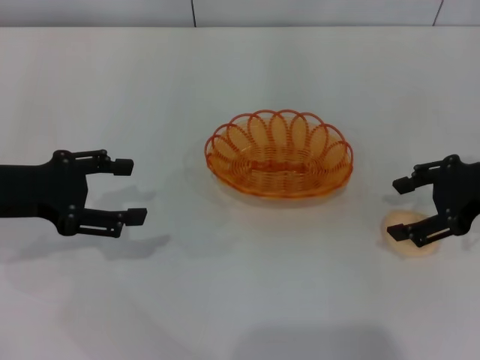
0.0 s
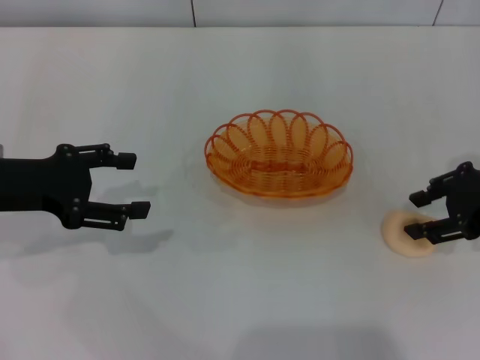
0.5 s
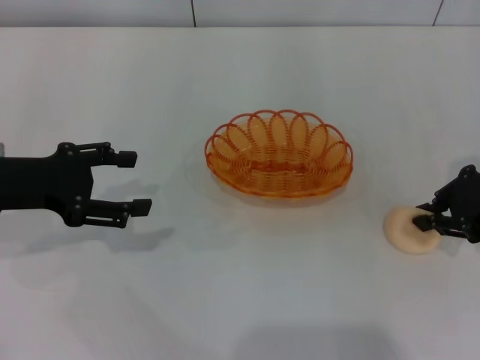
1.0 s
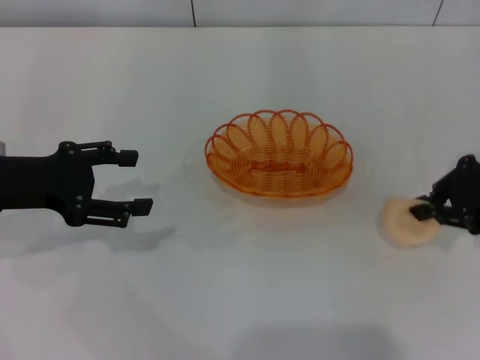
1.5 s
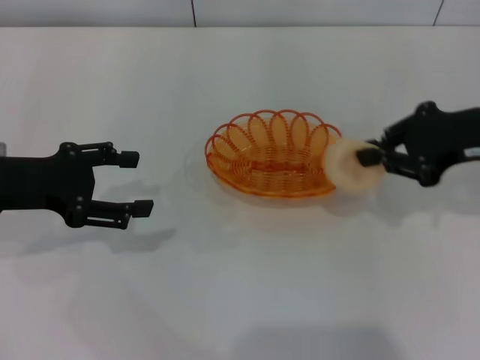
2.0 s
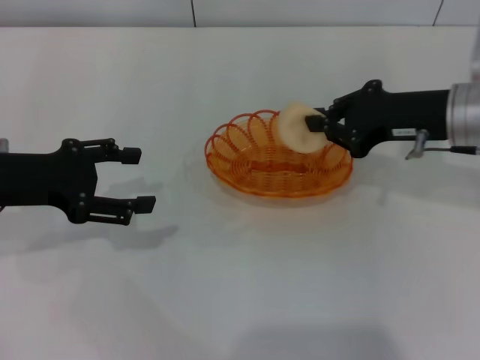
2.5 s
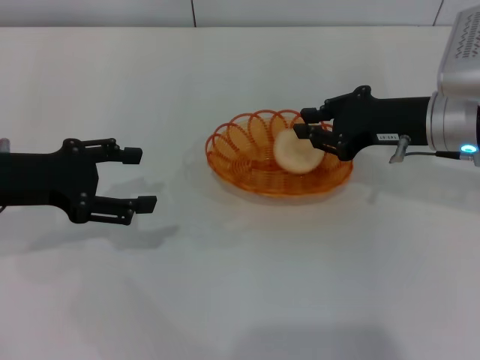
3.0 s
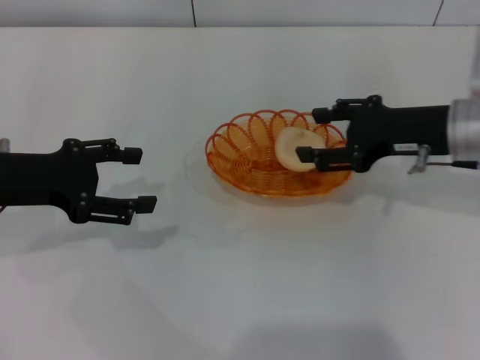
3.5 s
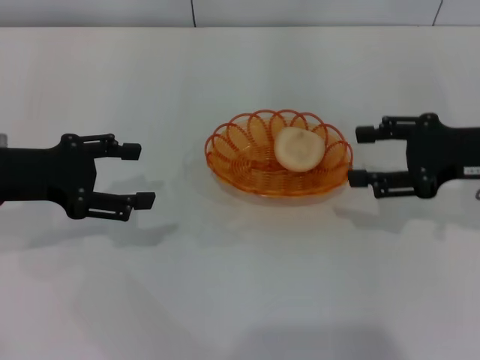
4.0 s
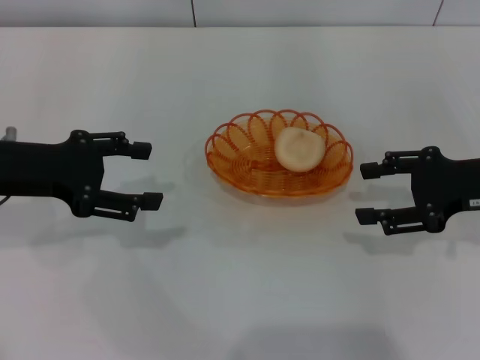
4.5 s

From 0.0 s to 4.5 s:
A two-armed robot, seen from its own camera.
Step, from 2.0 s to 3.5 s: Place the egg yolk pastry into the basket with the right gripper.
From 0.0 s to 2.0 s: The right gripper closes up.
From 2.0 s to 4.5 s: The right gripper shifts approximately 5 cm downward, travels to the left and back again, approximately 5 cm each way, and opens up.

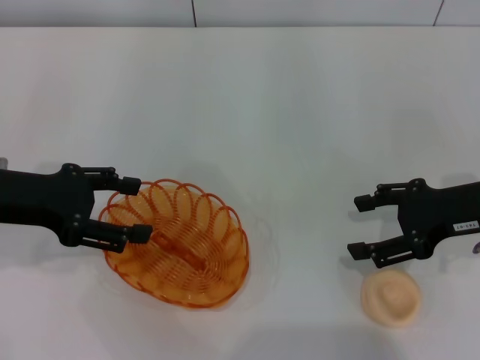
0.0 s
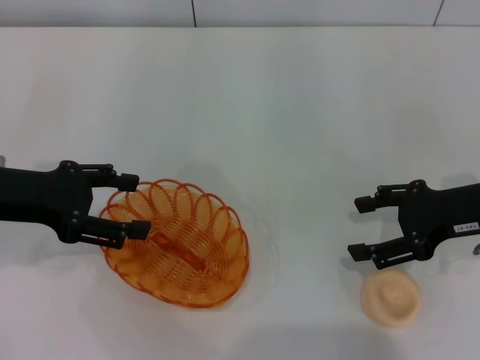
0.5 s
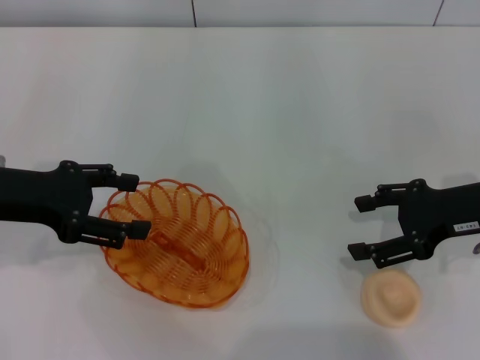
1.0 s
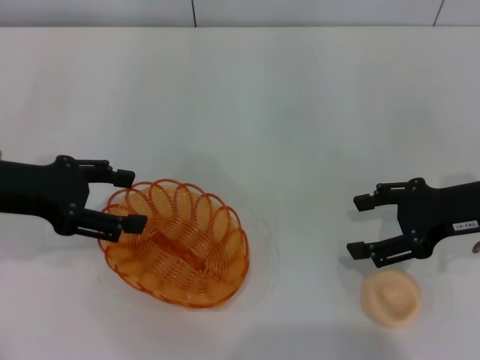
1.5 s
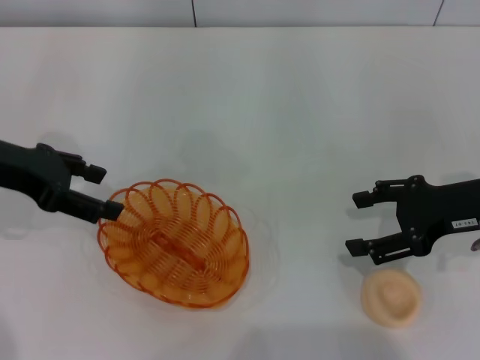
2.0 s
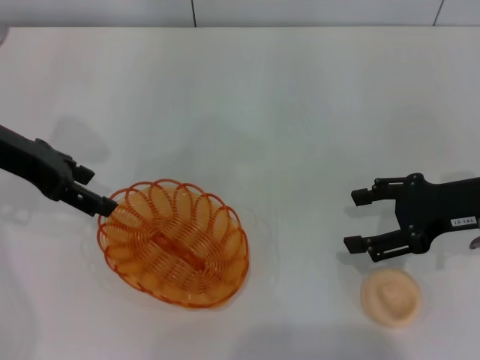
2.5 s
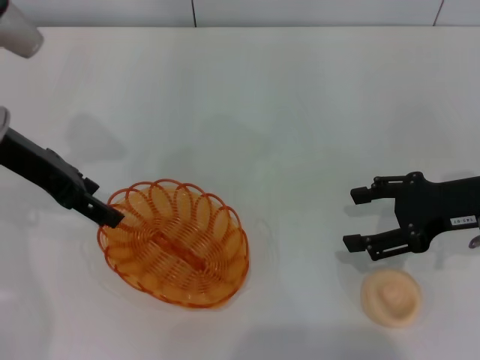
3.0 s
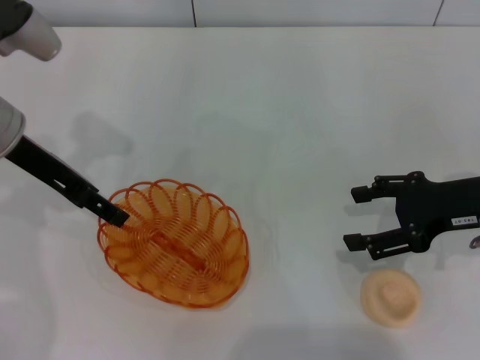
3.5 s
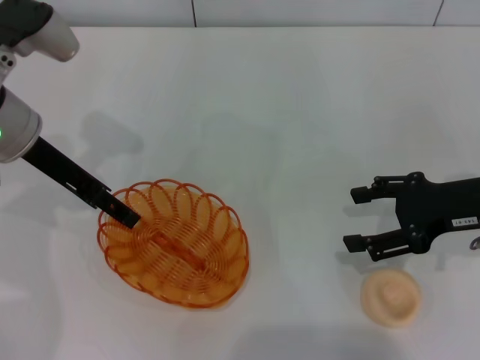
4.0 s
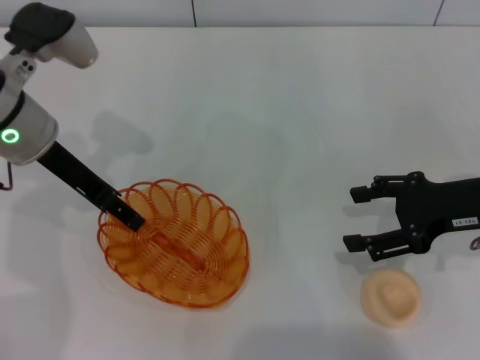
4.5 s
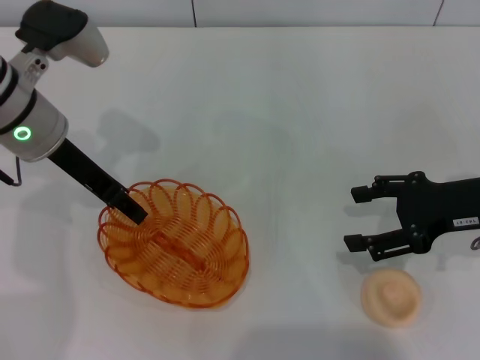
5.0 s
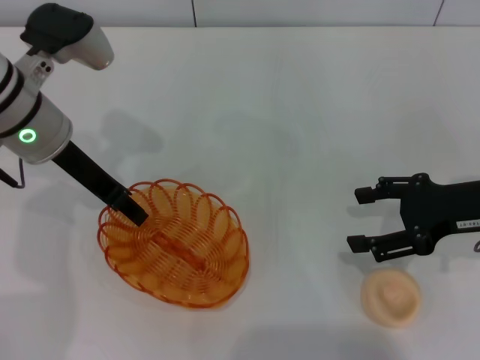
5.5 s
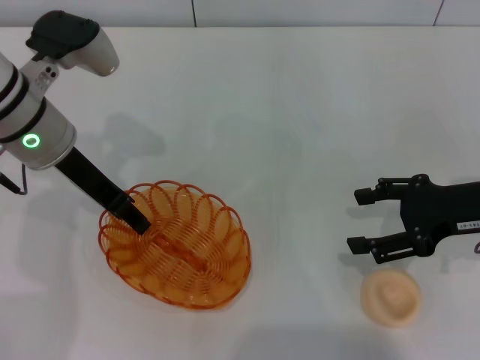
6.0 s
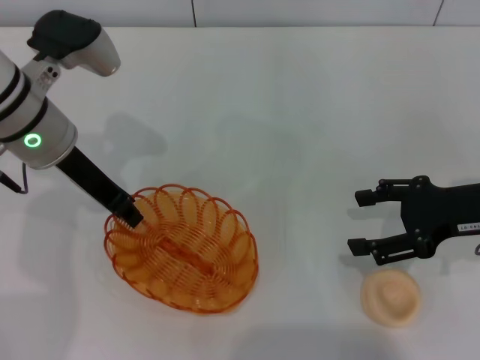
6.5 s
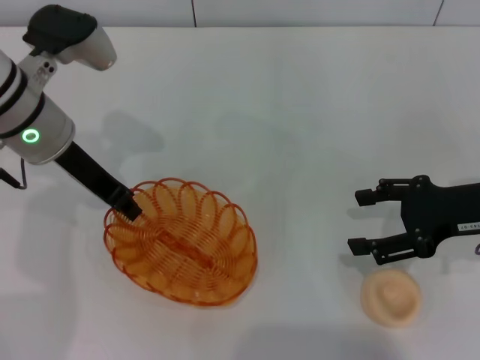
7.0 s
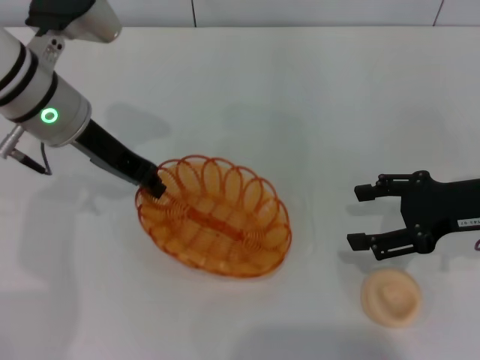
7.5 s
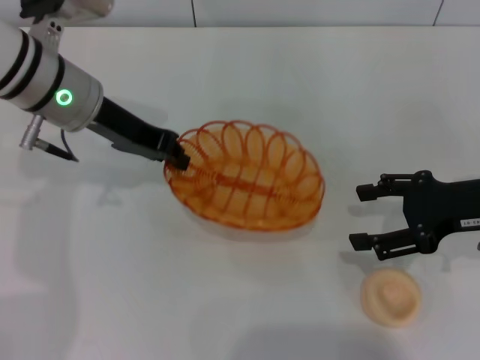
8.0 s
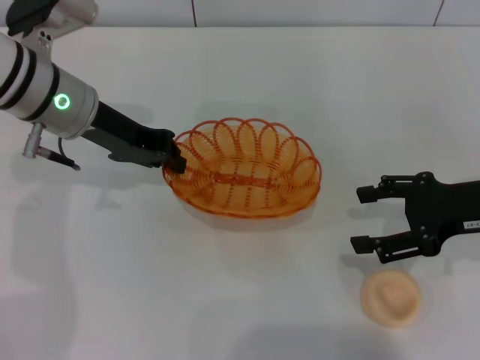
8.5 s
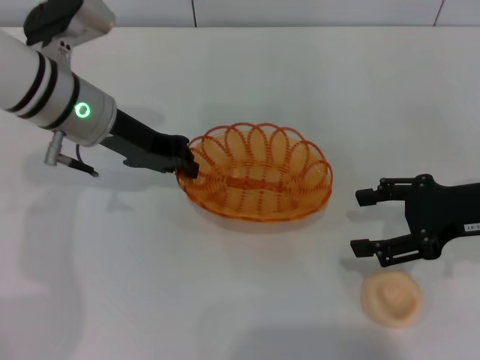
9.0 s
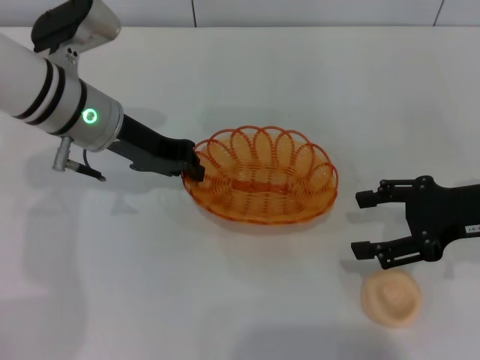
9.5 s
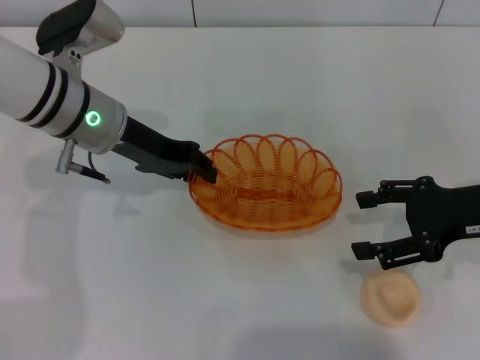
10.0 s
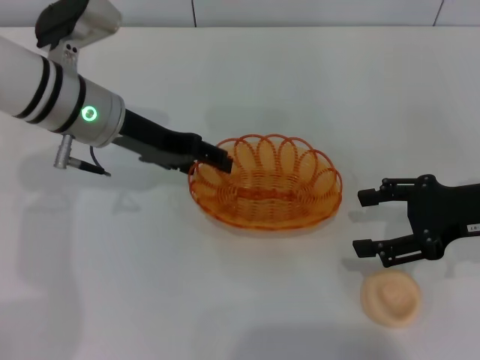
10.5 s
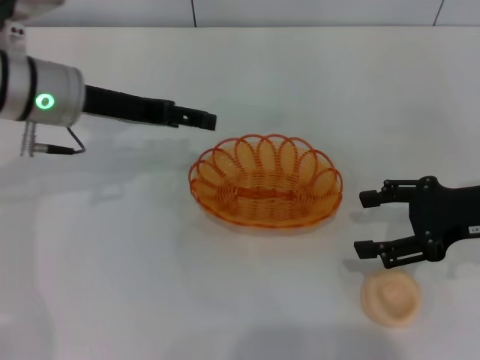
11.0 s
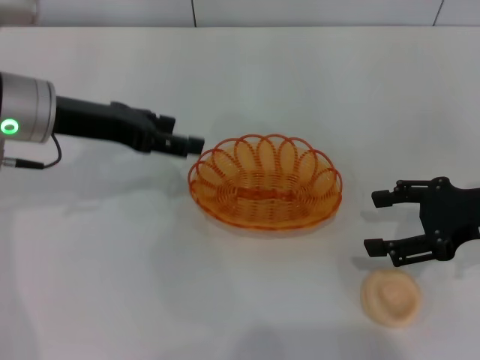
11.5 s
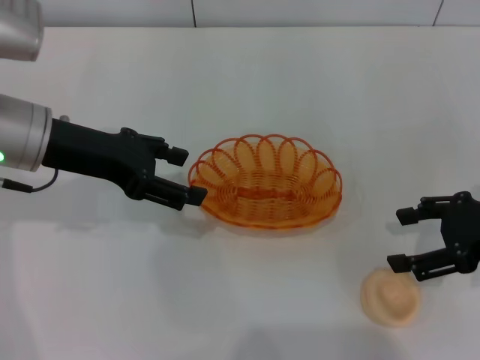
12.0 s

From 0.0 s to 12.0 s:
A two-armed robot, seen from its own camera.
Step, from 0.0 s to 8.0 s: Pick up the basket with the left gripper.
Step, from 8.5 s to 11.0 s: Place the basket in the center of view with the left gripper.
From 0.0 s to 2.0 s: The grippers stay close to where they were, moving slightly.
From 2.0 s to 4.0 s: The left gripper travels to the right by approximately 5 cm.
From 4.0 s to 6.0 s: The left gripper closes up.
From 6.0 s to 8.0 s: The left gripper closes up.
From 8.0 s to 10.0 s: There are only small adjustments of the grippers.
From 10.0 s to 12.0 s: The left gripper goes about 5 cm to the left, and opens up.

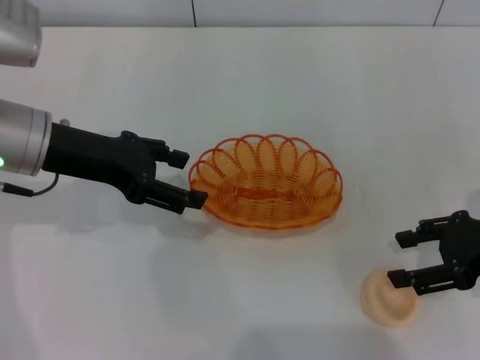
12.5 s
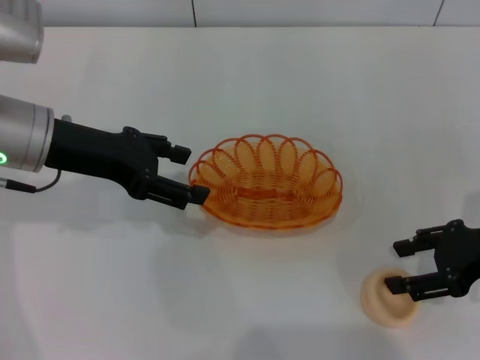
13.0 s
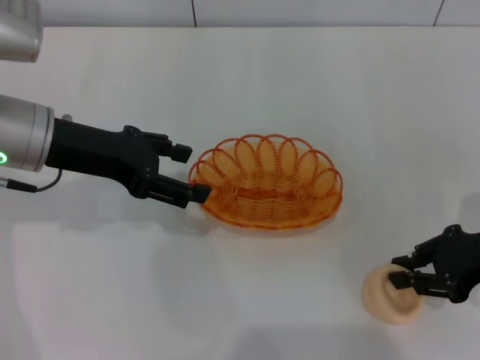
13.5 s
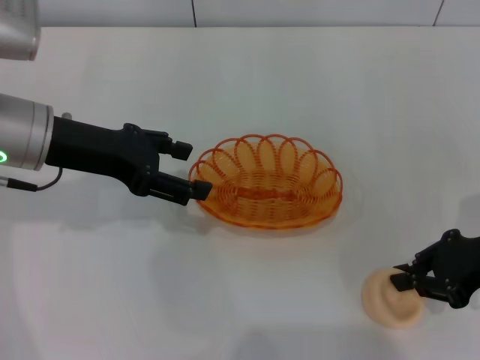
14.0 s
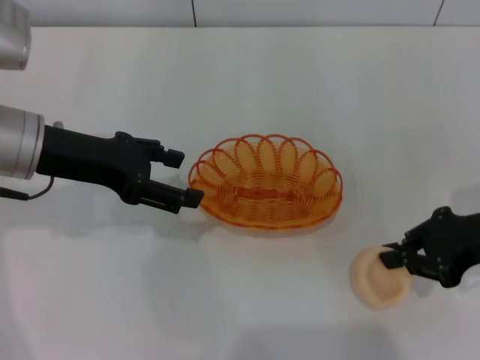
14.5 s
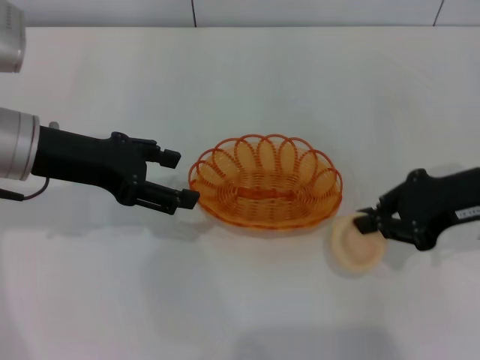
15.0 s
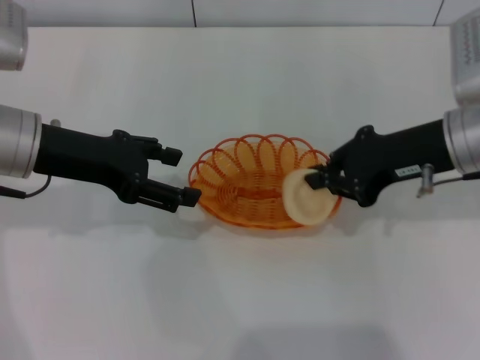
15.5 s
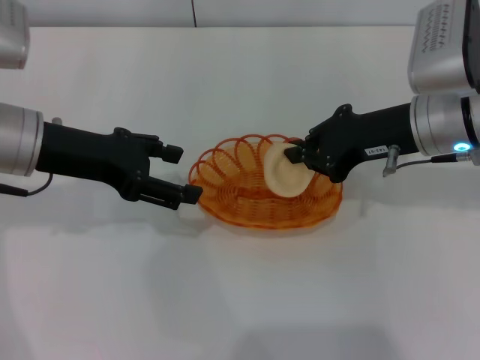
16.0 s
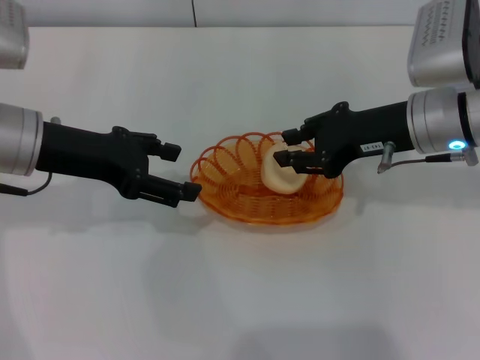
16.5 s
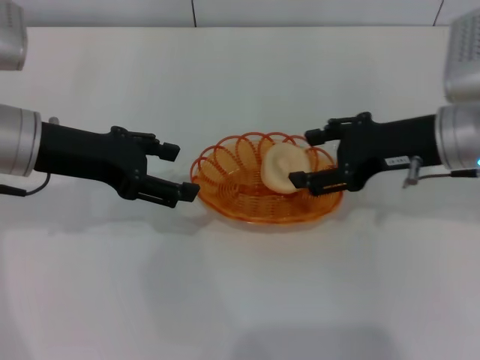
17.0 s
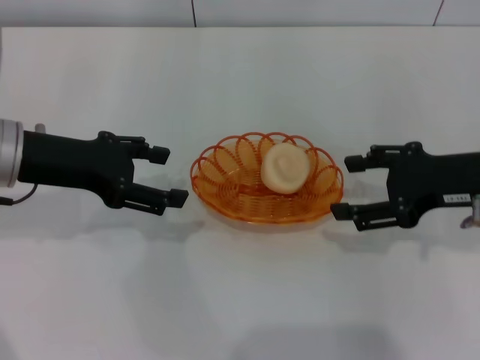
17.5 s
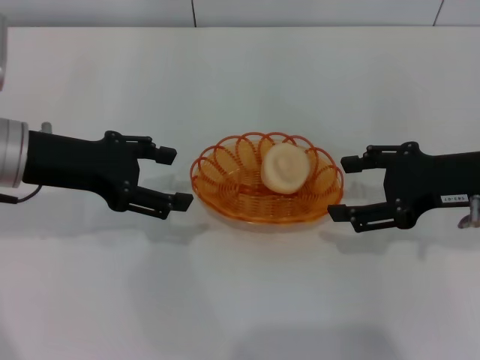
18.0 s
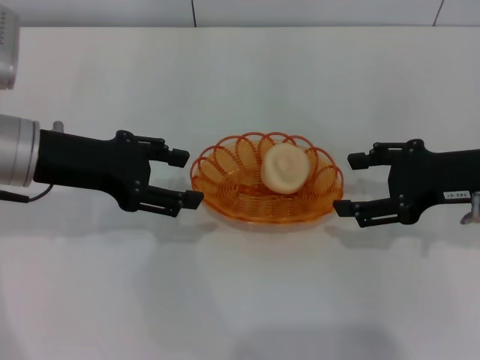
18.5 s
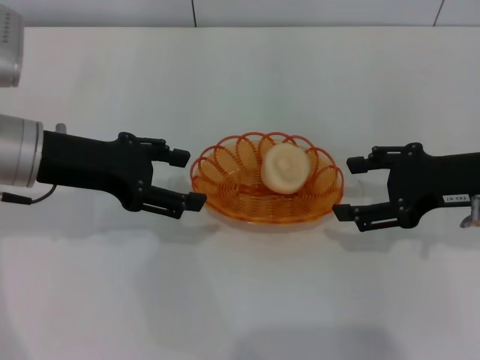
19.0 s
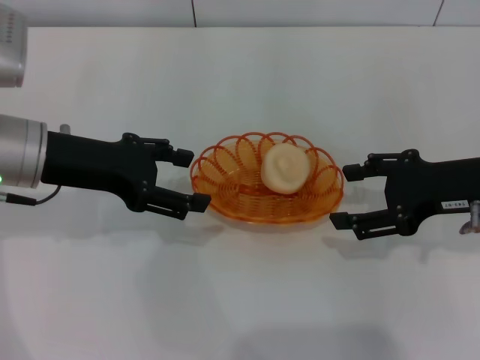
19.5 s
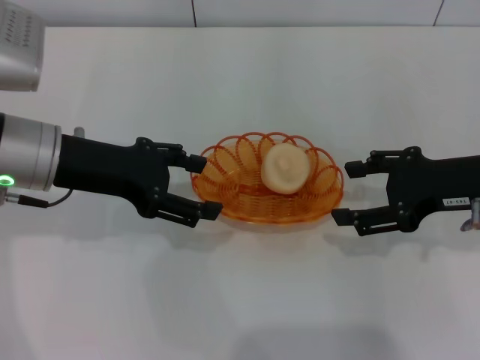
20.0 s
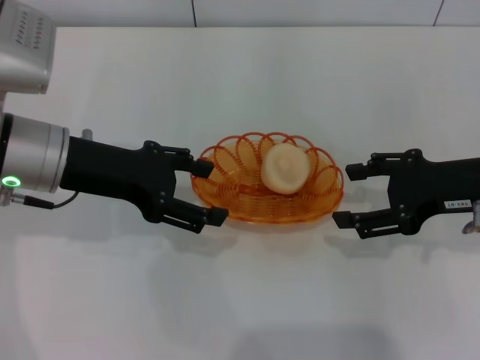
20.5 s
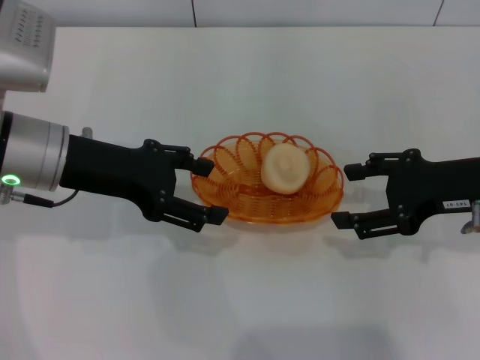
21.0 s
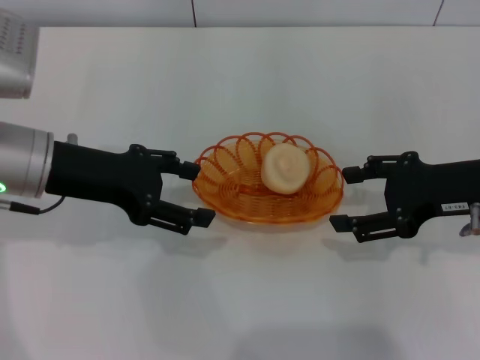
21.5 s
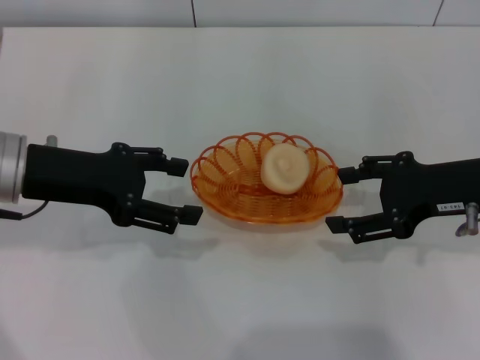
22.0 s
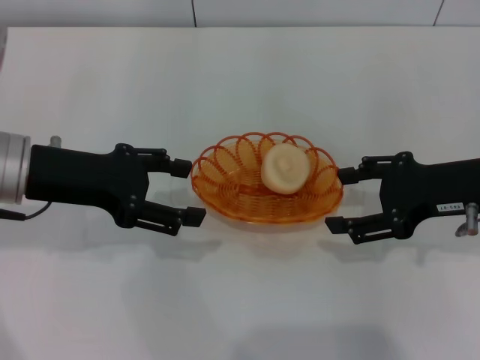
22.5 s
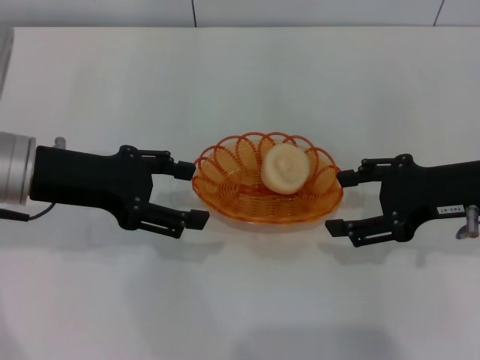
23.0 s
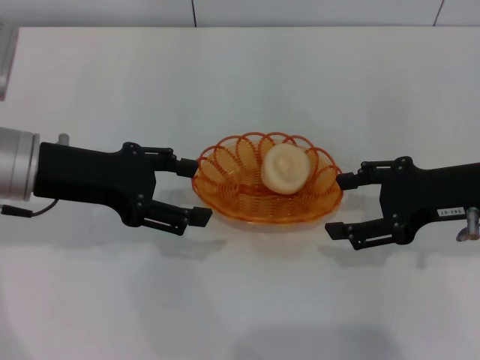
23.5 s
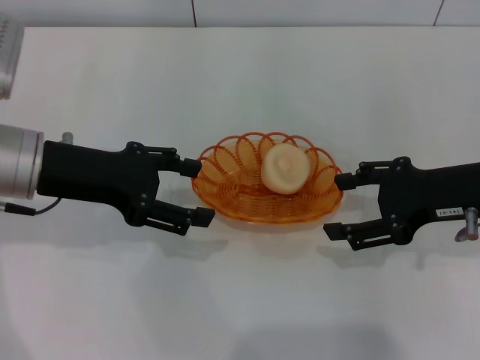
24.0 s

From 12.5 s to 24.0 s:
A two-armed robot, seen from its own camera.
Step, from 12.5 s to 14.5 s: Pick up the egg yolk pastry with the right gripper.
Step, from 15.0 s to 19.0 s: Place the egg yolk pastry into the basket with the right gripper.
From 12.5 s to 14.5 s: The right gripper closes up.
From 14.5 s to 16.5 s: The right gripper goes roughly 10 cm to the left and forward.
From 16.5 s to 18.5 s: The right gripper shifts about 10 cm to the right and backward, and opens up.
From 18.5 s to 22.0 s: The grippers stay close to where they were, moving slightly.
From 22.0 s to 24.0 s: Neither gripper changes place.
